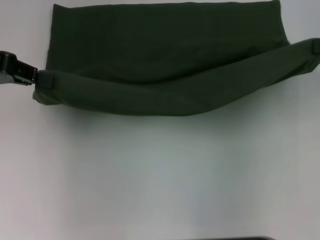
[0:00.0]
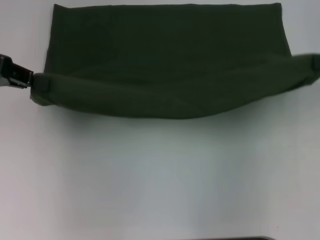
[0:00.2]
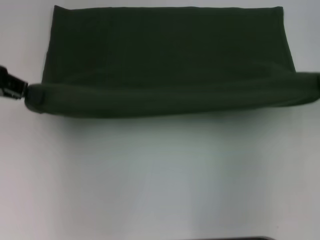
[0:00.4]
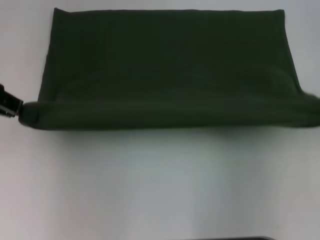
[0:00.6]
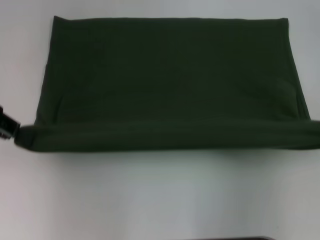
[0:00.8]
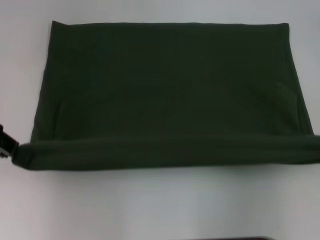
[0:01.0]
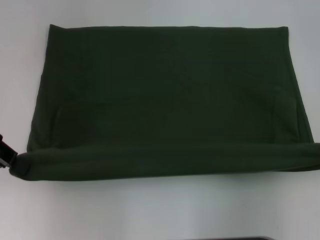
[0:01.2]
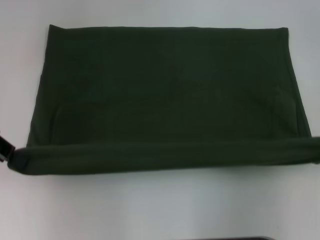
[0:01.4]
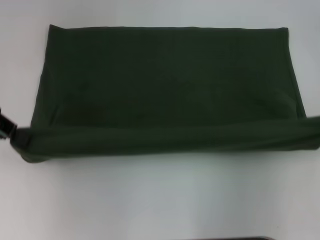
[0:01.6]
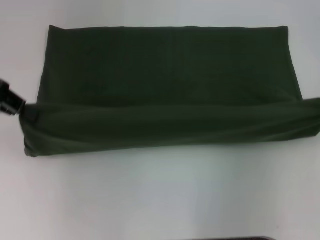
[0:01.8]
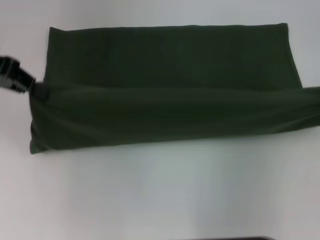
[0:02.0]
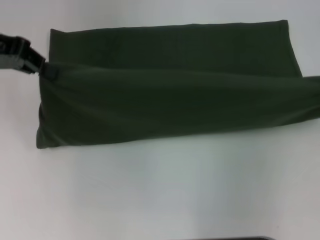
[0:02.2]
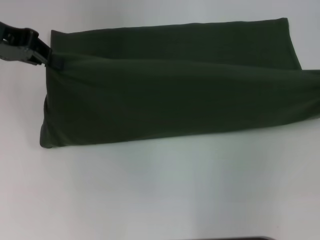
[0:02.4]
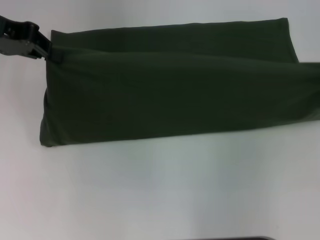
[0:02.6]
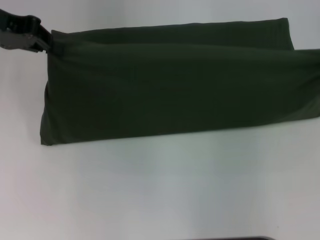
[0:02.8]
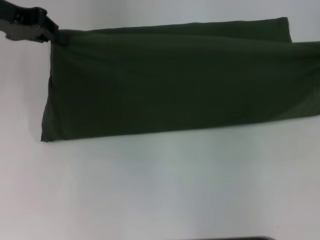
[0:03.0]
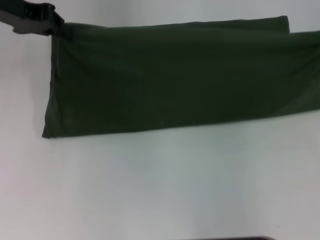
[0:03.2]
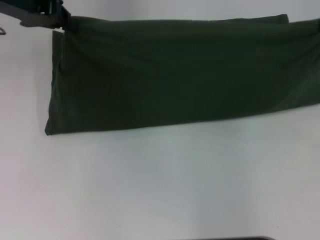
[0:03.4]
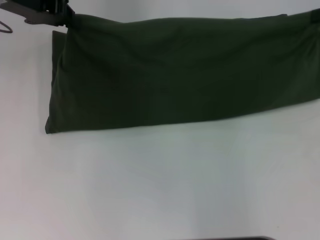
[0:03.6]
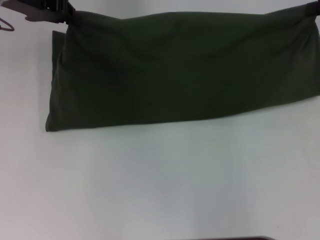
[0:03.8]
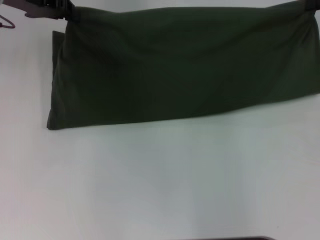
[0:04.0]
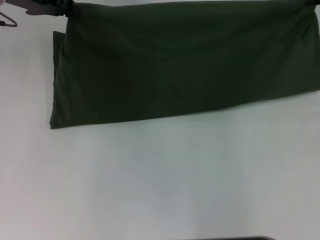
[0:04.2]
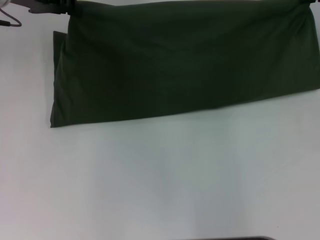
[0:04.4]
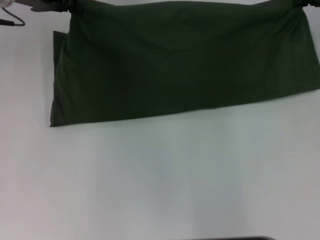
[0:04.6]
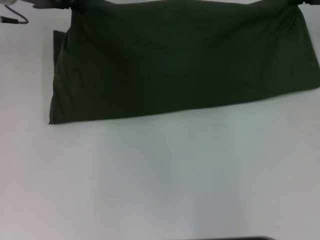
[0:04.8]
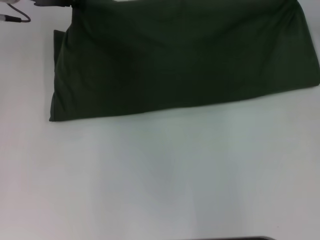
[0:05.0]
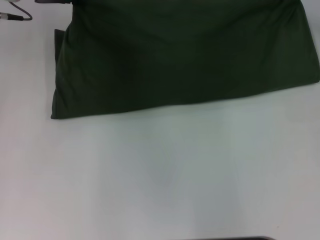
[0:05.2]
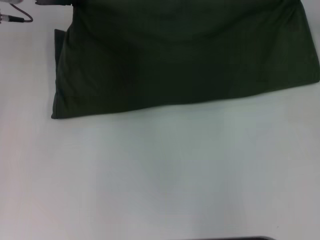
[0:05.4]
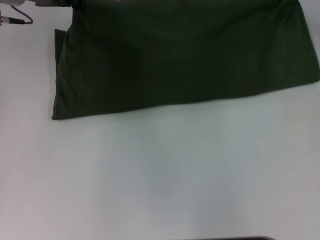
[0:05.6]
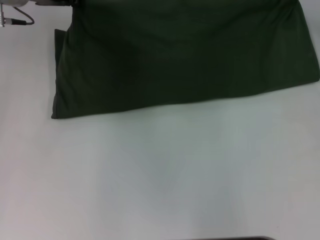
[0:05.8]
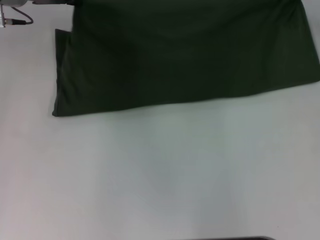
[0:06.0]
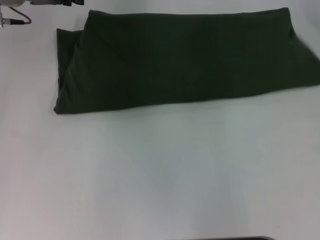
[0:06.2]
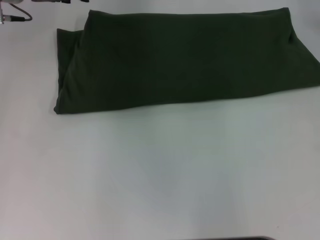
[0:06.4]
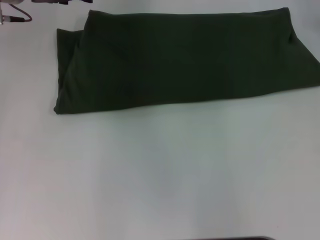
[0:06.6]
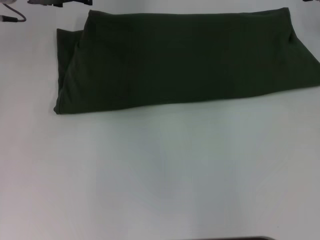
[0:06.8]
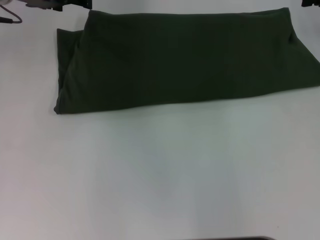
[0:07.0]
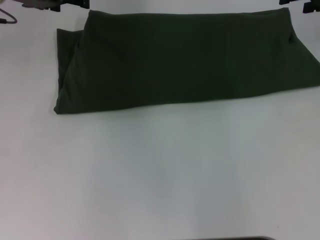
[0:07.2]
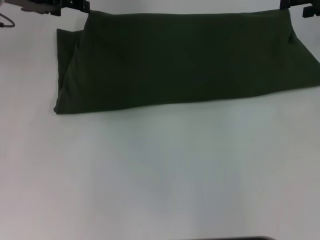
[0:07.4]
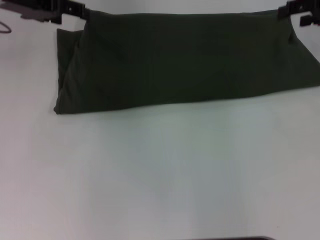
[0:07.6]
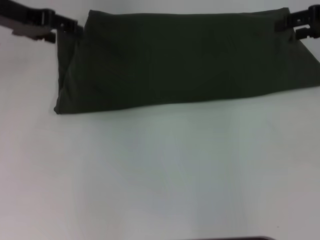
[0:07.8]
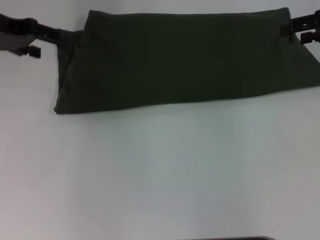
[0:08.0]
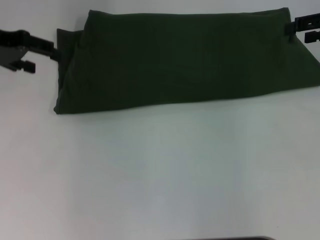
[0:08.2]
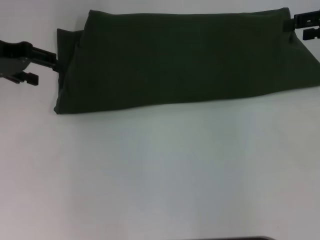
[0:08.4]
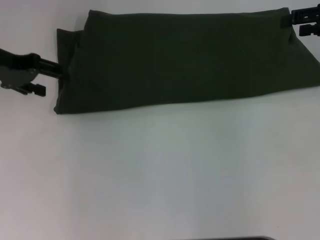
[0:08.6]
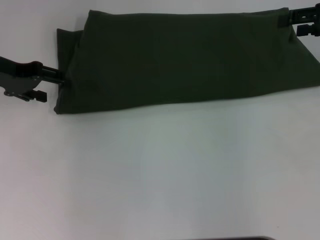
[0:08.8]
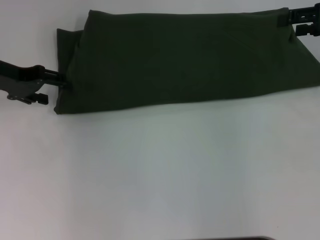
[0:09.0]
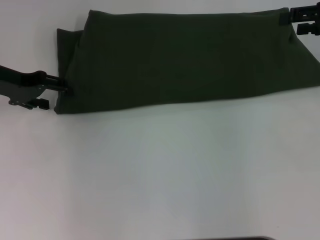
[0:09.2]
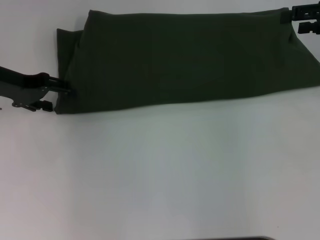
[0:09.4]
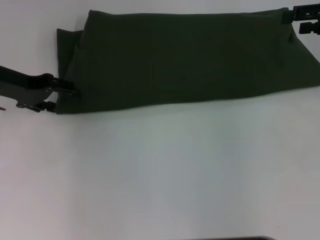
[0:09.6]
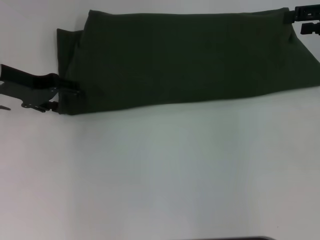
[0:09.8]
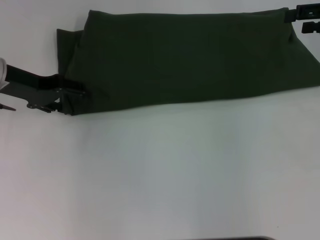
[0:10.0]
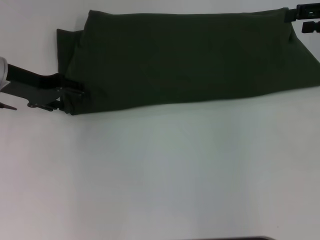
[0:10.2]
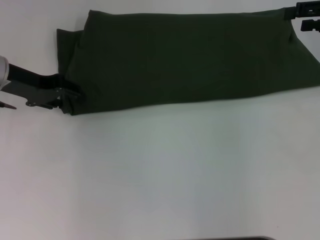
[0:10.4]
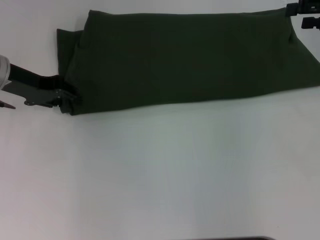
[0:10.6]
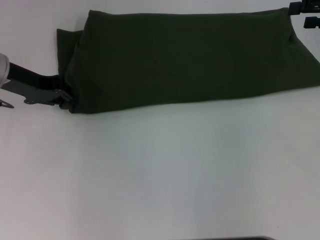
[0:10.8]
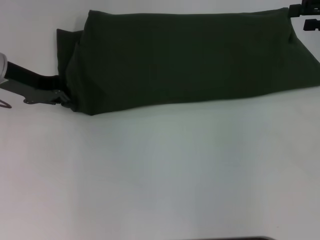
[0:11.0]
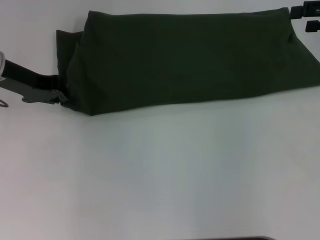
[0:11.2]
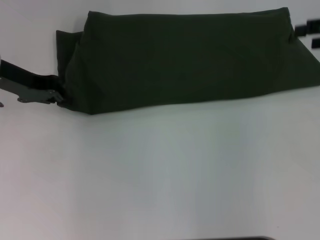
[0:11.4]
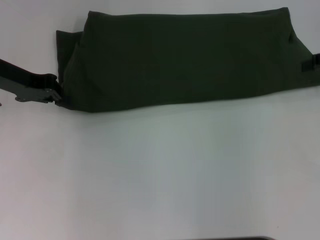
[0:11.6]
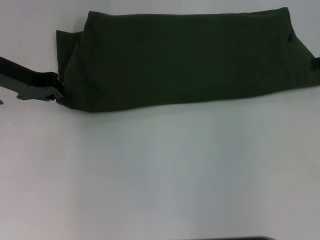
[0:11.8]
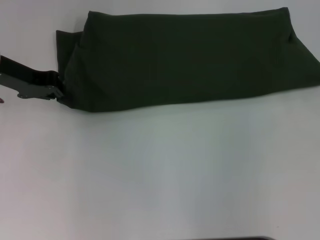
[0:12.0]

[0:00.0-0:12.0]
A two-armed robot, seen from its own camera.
Step, 0:01.2 to 0:06.2: Fold the clothes with your right hand.
0:01.6 to 0:03.0: Both grippers travel together forward, approximately 5 cm.
0:03.0 to 0:04.4: The left gripper moves roughly 5 cm. Meanwhile the right gripper is displaced forward by roughly 5 cm.
0:04.4 to 0:06.0: The grippers move only a little.
0:06.0 to 0:07.6: The left gripper opens; the right gripper opens.
0:07.6 to 0:09.0: The left gripper heads downward, covering roughly 5 cm.
0:09.0 to 0:10.4: The grippers move only a little.
0:10.4 to 0:12.0: The right gripper moves approximately 5 cm. Meanwhile the left gripper closes up.

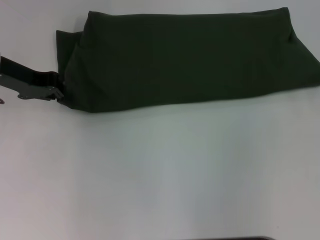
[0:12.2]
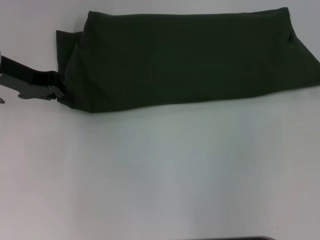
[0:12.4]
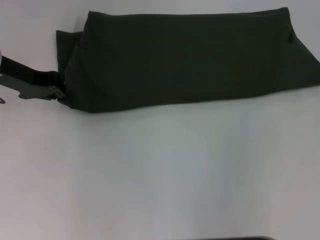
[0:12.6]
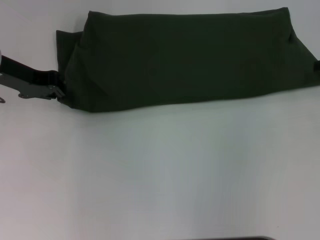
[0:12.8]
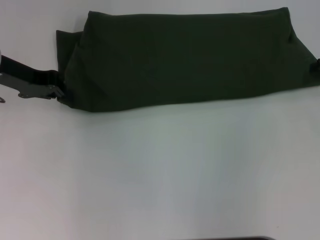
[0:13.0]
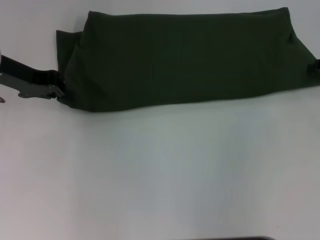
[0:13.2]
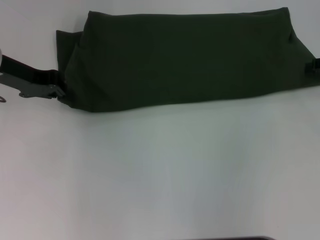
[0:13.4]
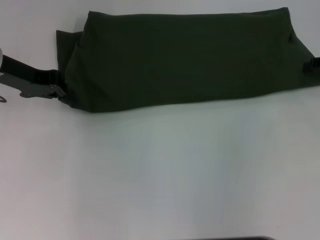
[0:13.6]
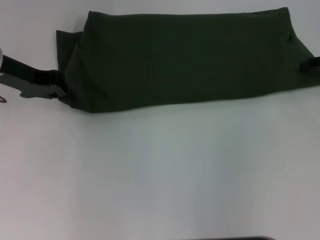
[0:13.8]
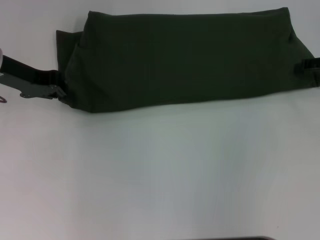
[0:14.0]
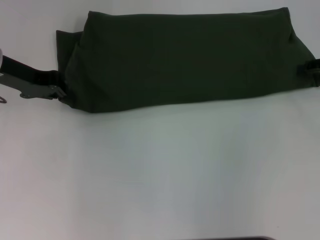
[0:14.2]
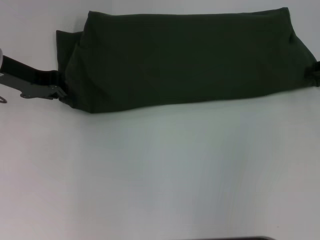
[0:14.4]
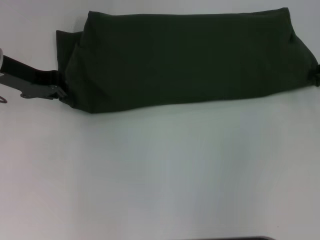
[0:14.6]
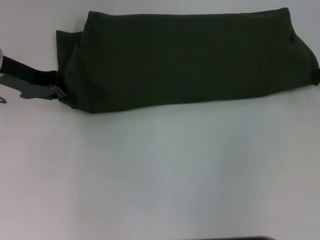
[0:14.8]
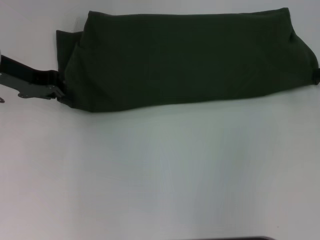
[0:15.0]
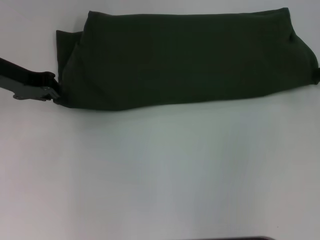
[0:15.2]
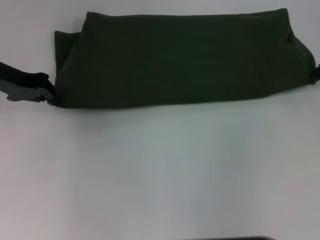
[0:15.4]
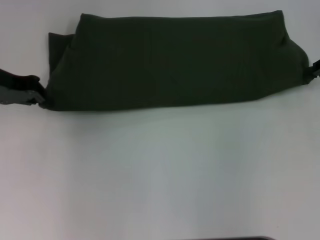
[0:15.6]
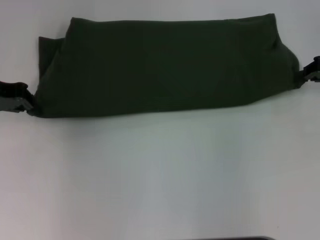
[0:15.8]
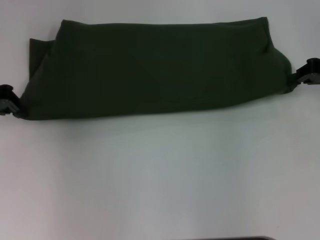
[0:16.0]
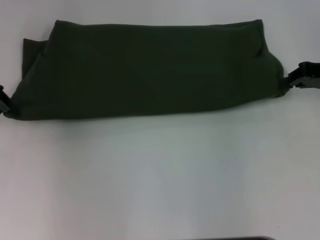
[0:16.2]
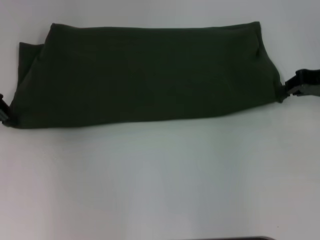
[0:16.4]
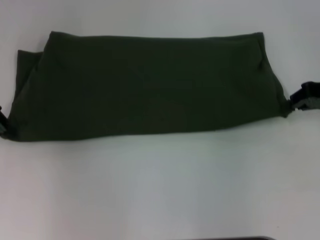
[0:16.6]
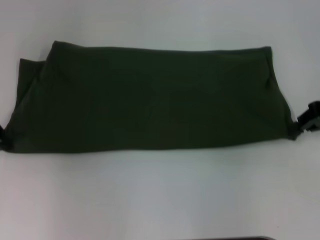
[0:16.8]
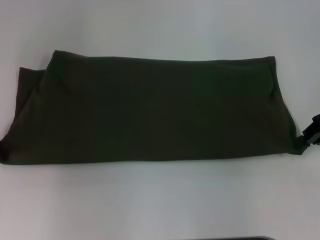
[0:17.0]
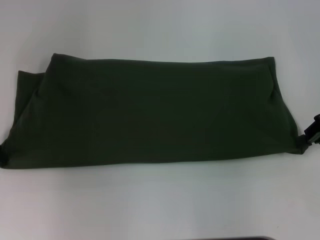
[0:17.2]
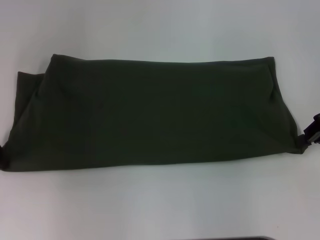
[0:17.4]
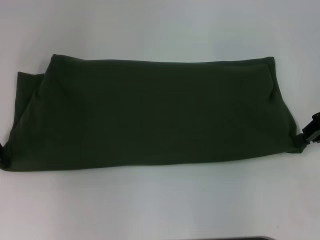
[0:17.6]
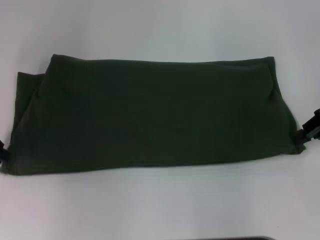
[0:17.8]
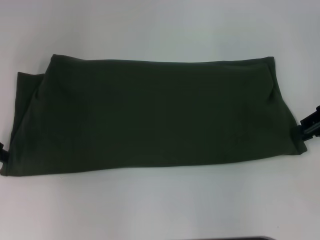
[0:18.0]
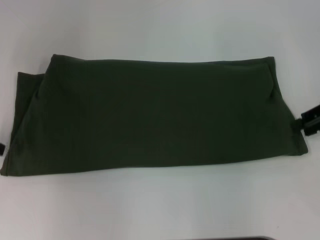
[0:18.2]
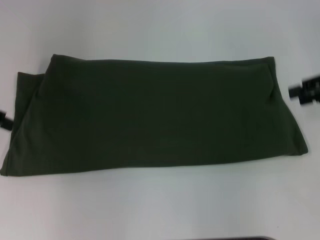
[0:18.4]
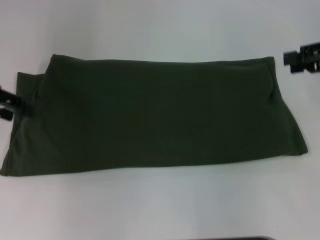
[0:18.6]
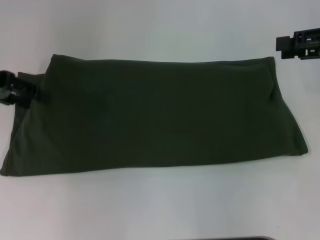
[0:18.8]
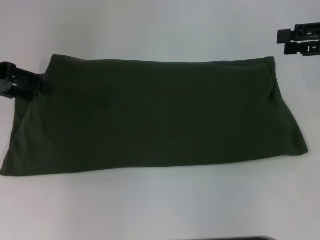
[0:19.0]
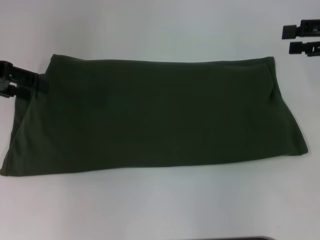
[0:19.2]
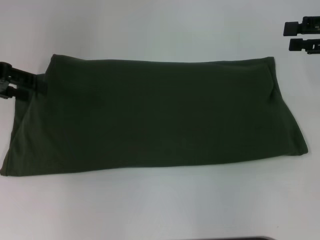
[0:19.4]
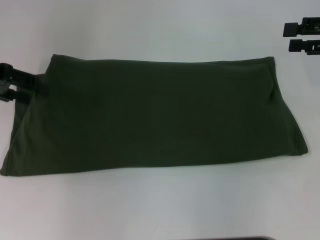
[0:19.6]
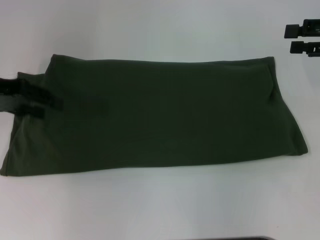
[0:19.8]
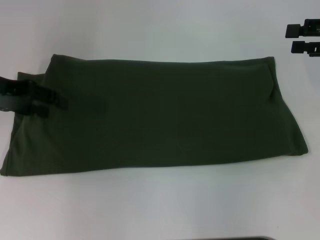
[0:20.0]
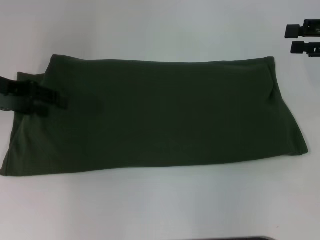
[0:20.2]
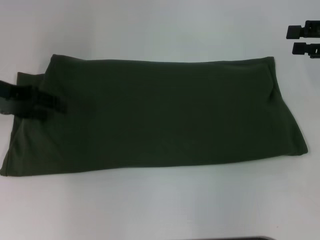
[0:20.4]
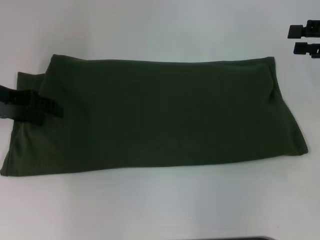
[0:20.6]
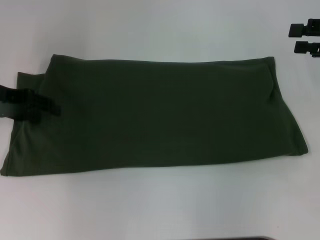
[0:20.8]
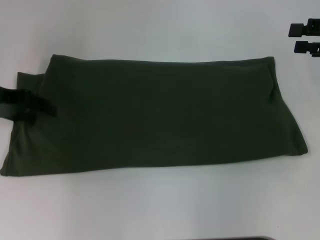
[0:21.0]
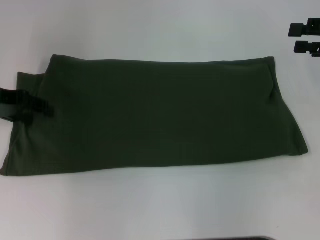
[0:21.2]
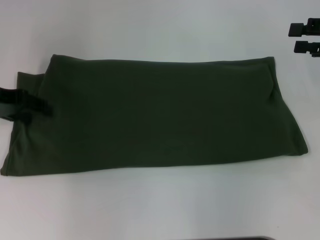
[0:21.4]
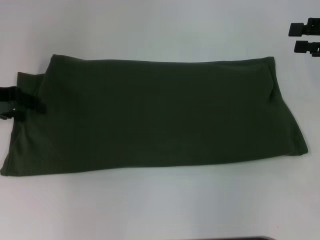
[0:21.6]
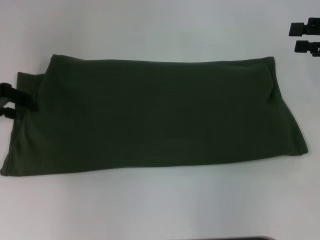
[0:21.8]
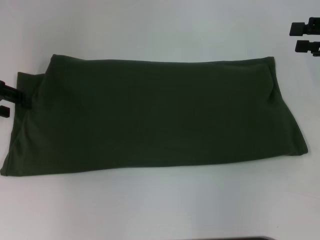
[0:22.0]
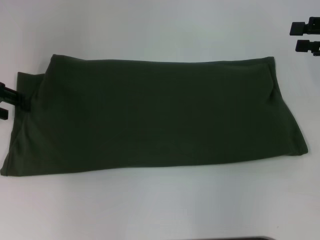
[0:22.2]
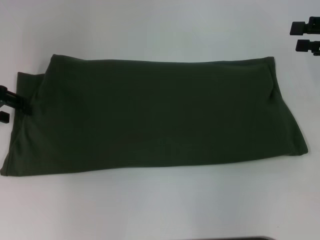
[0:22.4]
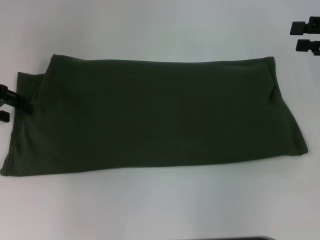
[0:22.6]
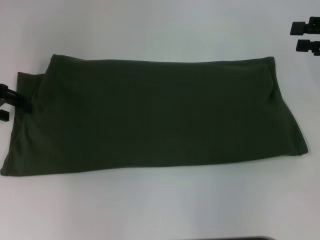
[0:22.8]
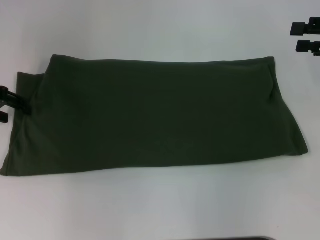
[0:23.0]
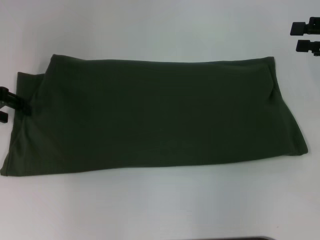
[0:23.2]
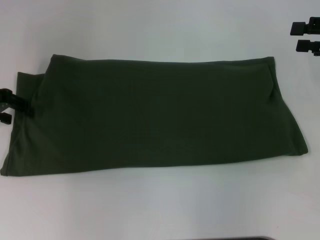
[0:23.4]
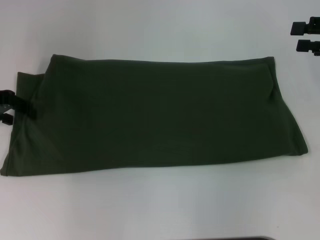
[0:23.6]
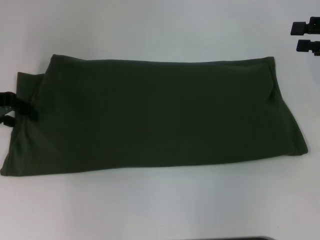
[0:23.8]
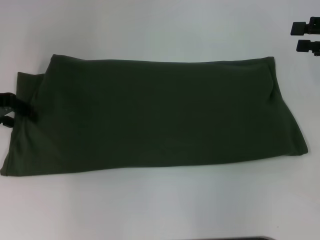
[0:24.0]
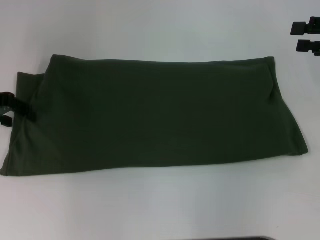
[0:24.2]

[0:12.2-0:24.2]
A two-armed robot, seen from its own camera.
0:15.2 to 0:16.6: The left gripper goes about 5 cm to the left.
0:18.2 to 0:19.8: The right gripper opens its fingers, while the left gripper moves some 5 cm, and opens.
0:19.8 to 0:22.6: There are only small adjustments of the grippers.
